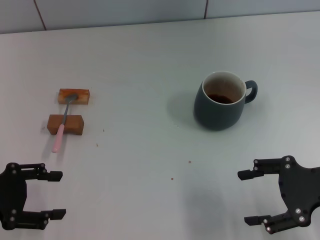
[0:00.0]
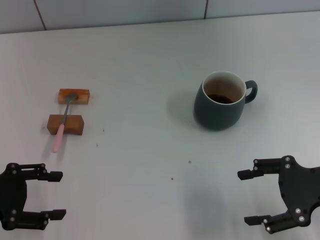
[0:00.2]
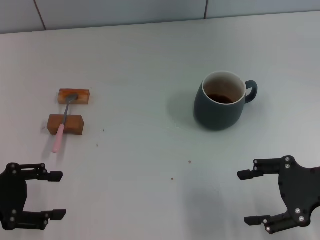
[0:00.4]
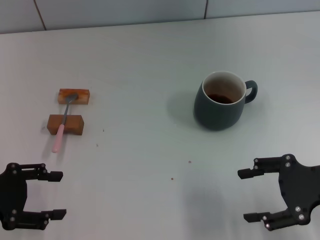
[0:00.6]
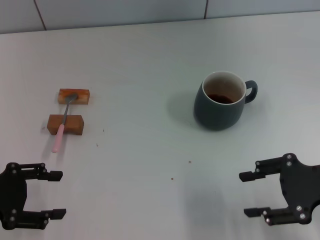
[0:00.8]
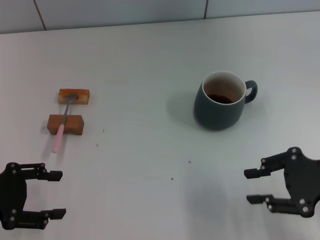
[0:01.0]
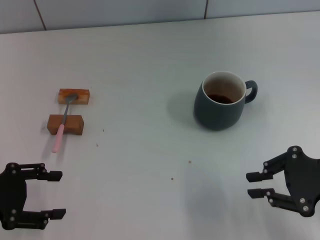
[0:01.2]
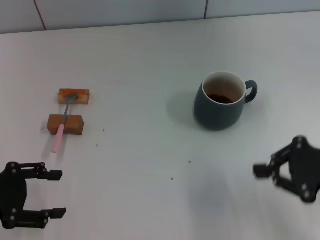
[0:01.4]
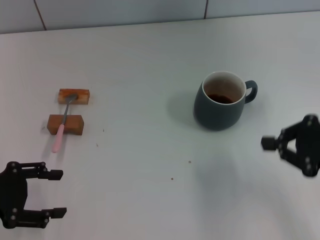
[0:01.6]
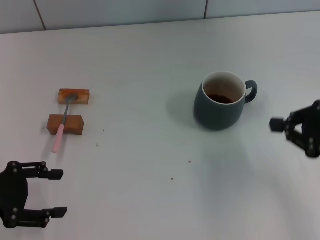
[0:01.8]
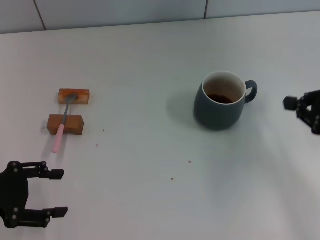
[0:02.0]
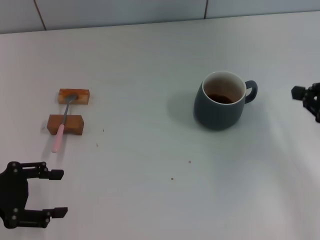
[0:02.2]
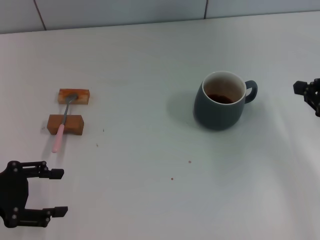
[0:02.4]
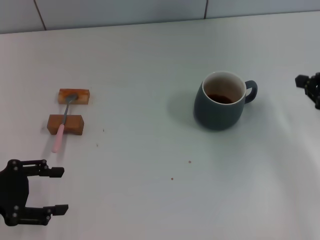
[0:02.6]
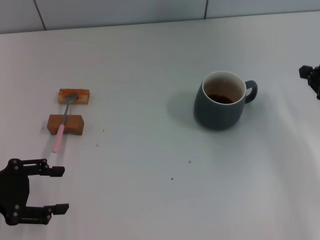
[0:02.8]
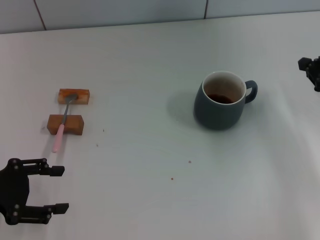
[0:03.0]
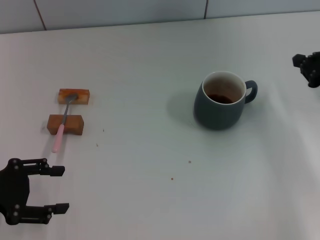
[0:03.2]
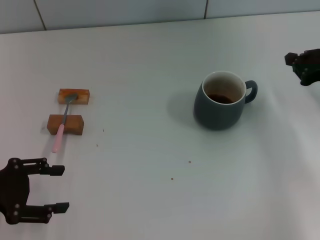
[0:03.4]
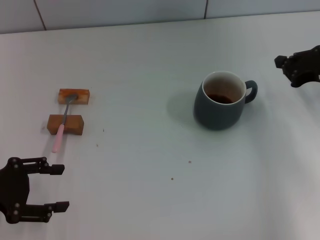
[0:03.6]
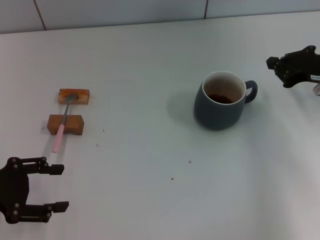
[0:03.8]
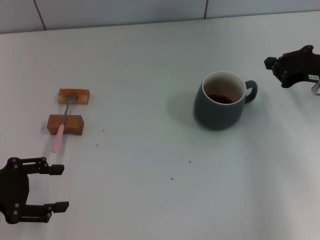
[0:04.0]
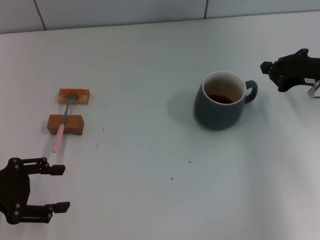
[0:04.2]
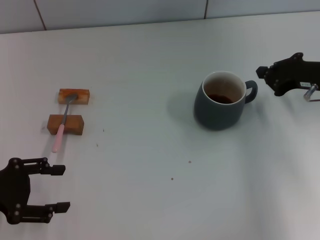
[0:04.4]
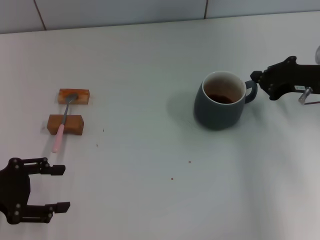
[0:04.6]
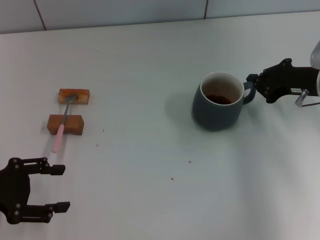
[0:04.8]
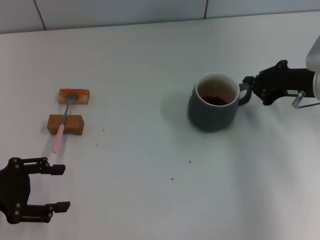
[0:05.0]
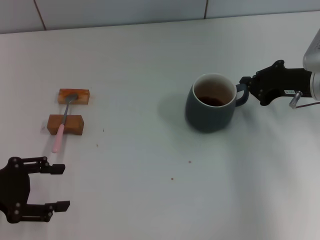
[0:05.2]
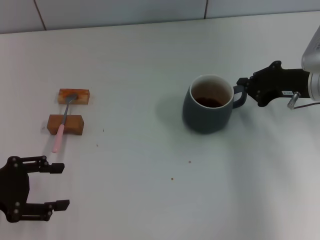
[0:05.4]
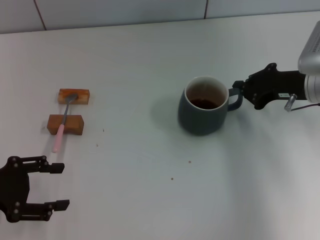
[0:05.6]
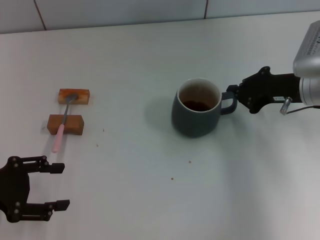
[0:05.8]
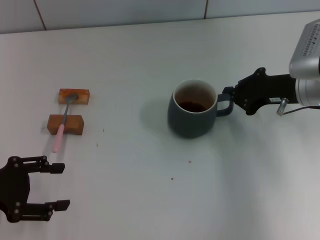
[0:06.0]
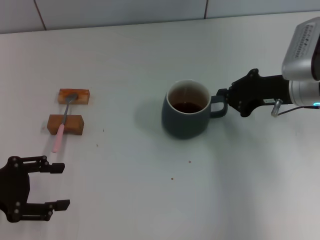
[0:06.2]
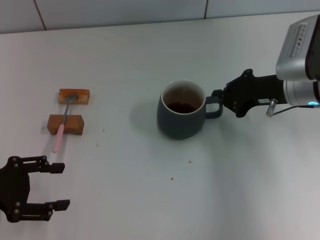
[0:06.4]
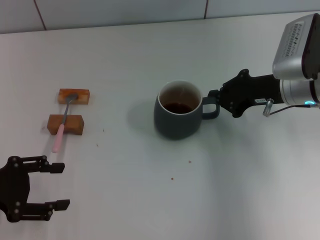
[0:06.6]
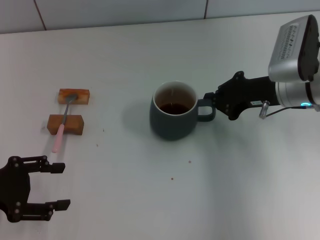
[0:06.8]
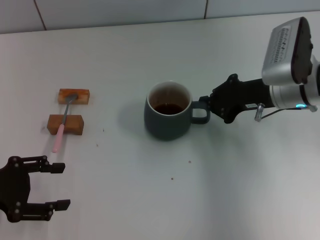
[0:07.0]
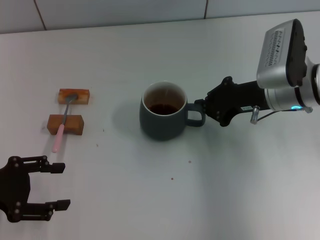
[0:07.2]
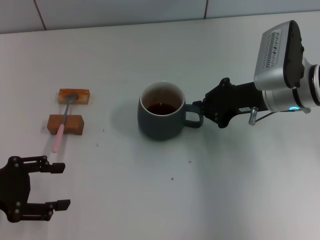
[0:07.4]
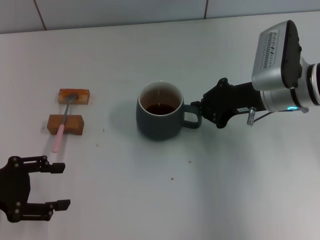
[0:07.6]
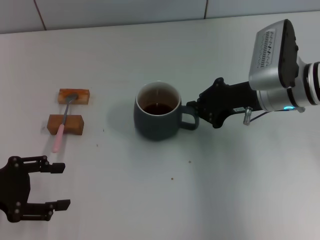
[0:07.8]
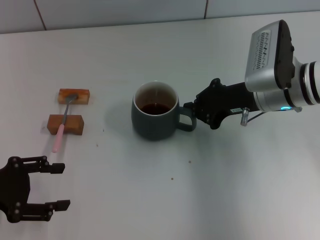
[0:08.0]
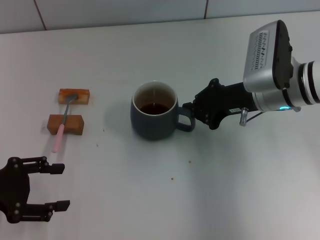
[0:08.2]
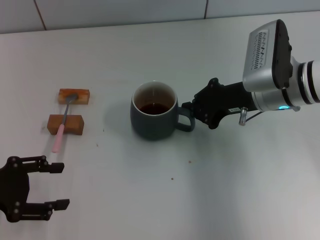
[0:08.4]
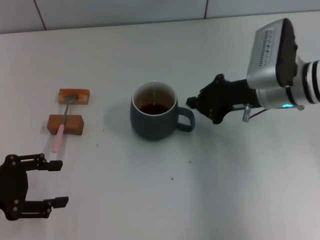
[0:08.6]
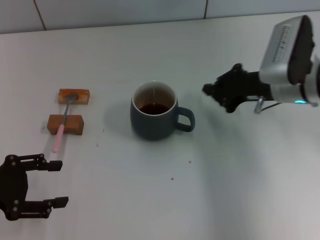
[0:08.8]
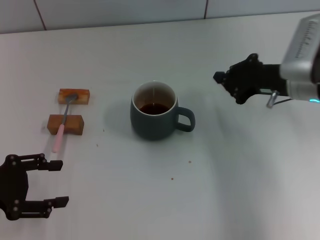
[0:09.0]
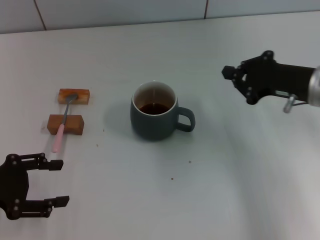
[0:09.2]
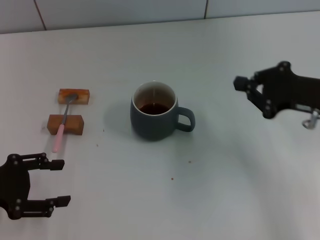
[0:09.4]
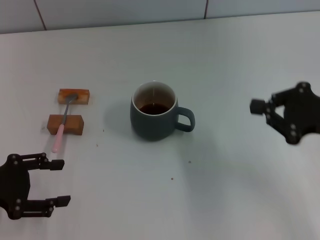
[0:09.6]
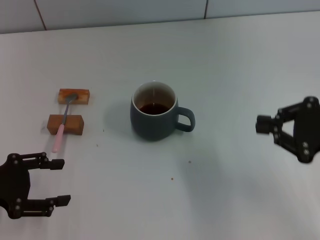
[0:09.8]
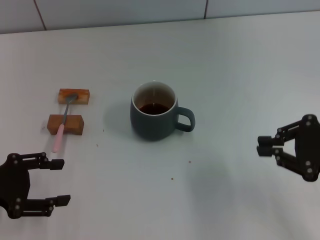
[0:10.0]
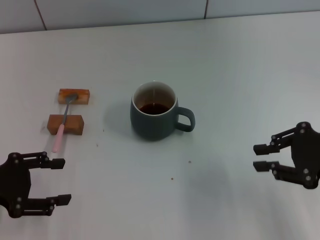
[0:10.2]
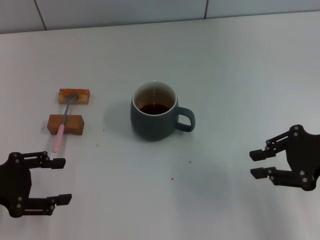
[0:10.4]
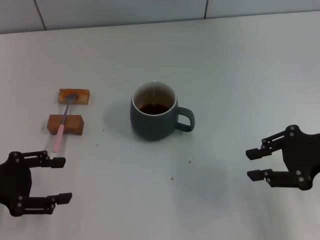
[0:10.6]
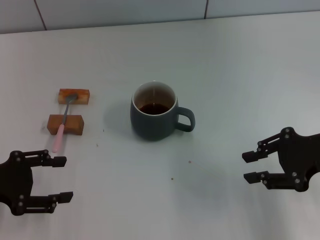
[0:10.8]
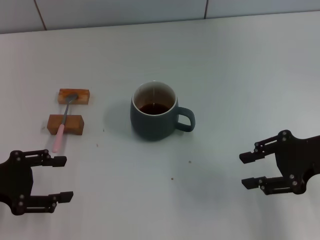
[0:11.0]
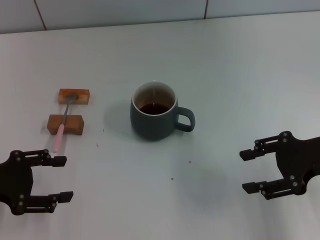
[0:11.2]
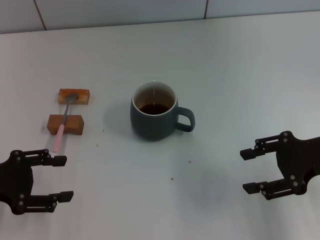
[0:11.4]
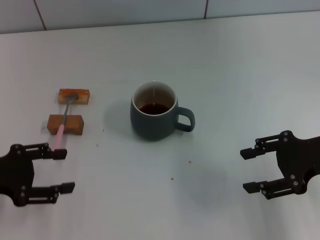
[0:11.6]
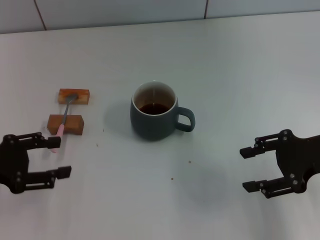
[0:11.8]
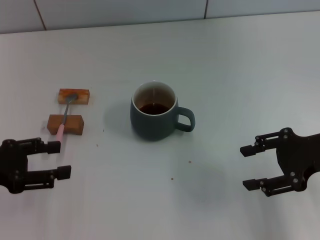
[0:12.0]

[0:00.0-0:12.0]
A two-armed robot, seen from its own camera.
Task of the whole recording: Move the grey cup to the center, lift the pink spoon, stir it three times in the cup, and put the spoon into the cup.
Step, 0:00.0 to 0:08.4: Move the cup with coffee to the center of view with the right gripper.
0:00.0 to 0:01.6: The right gripper closes.
0:01.6 to 0:03.0: The right gripper shifts roughly 10 cm forward.
0:03.0 to 0:04.4: The right gripper travels to the left by roughly 5 cm.
0:04.4 to 0:06.0: The grippers stay close to where they were, moving slightly.
0:06.0 to 0:07.6: The right gripper goes some 5 cm to the left.
0:07.6 to 0:09.0: The grippers make only small movements.
0:09.0 to 0:10.4: The right gripper goes approximately 10 cm backward and to the right.
0:10.4 to 0:12.0: The right gripper opens its fingers.

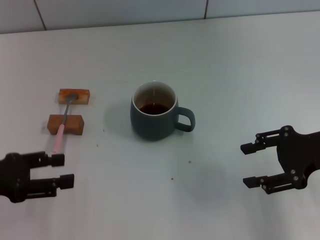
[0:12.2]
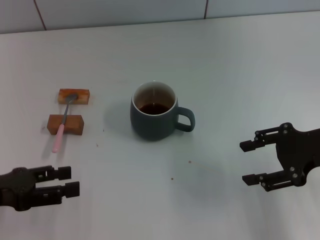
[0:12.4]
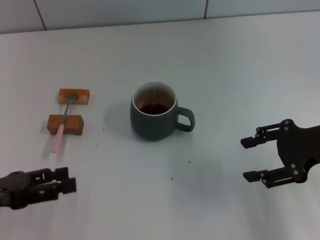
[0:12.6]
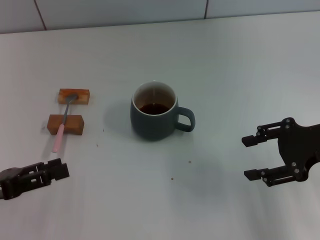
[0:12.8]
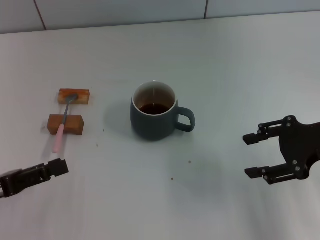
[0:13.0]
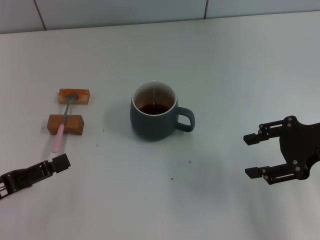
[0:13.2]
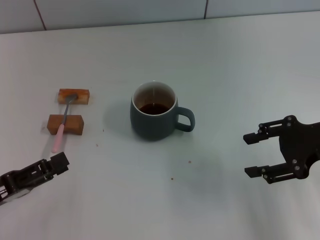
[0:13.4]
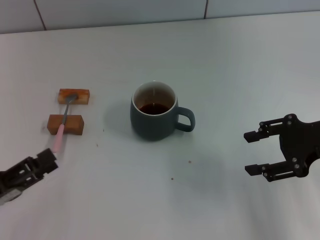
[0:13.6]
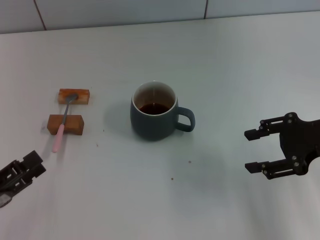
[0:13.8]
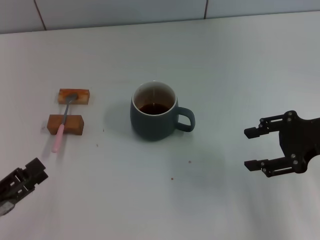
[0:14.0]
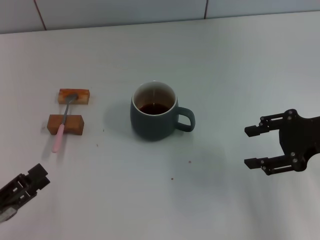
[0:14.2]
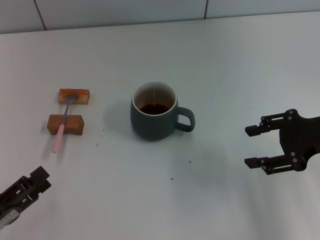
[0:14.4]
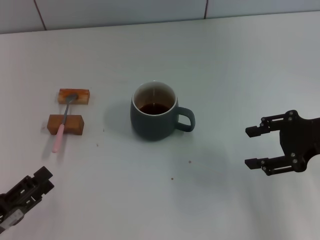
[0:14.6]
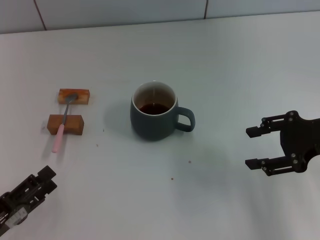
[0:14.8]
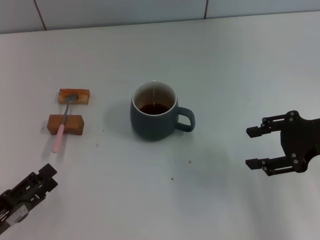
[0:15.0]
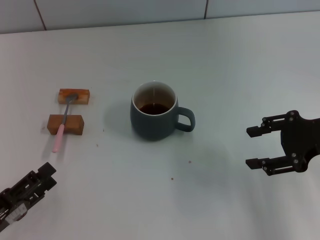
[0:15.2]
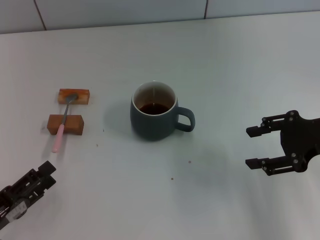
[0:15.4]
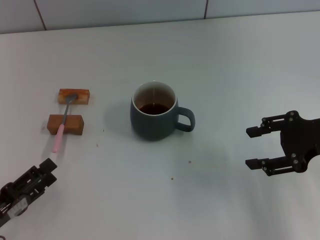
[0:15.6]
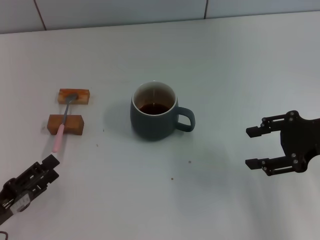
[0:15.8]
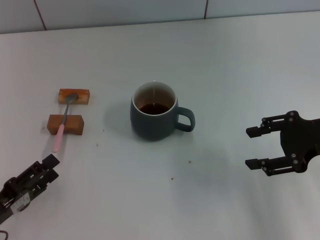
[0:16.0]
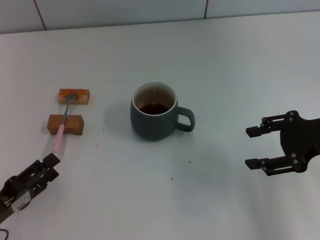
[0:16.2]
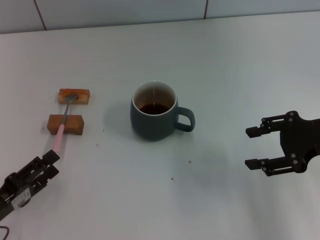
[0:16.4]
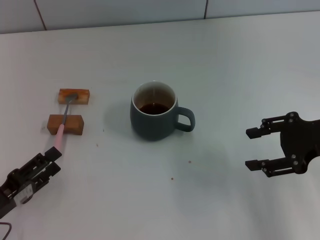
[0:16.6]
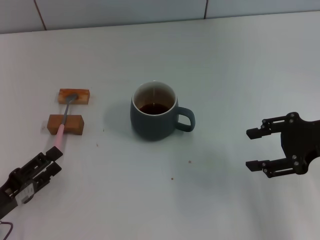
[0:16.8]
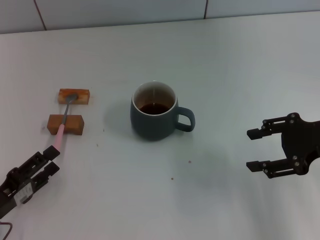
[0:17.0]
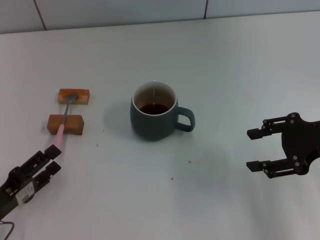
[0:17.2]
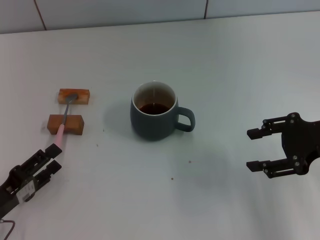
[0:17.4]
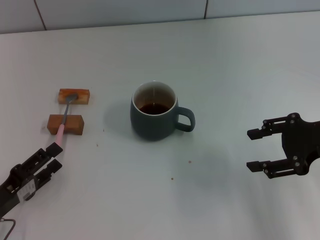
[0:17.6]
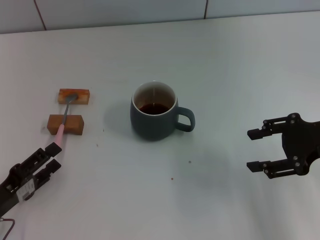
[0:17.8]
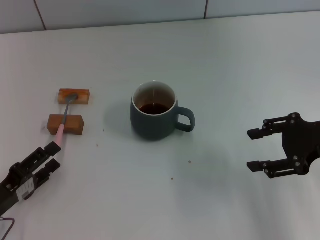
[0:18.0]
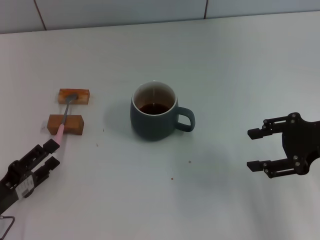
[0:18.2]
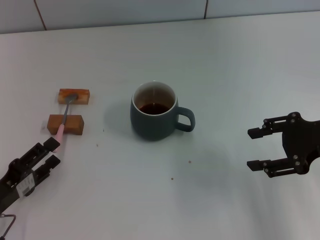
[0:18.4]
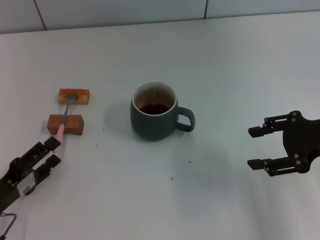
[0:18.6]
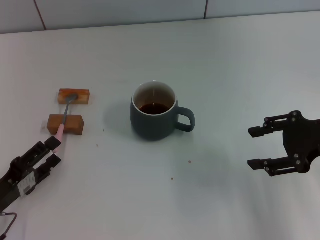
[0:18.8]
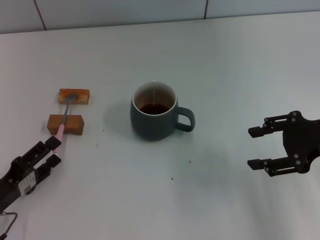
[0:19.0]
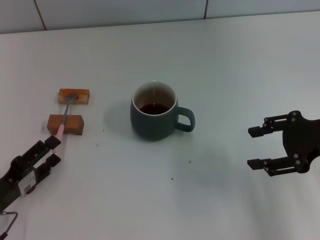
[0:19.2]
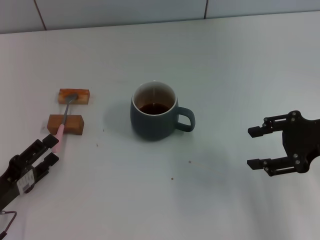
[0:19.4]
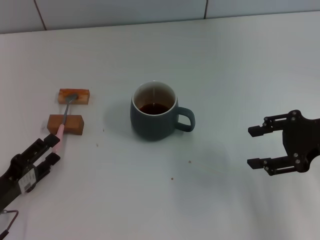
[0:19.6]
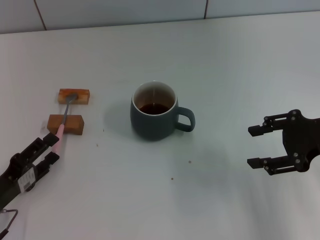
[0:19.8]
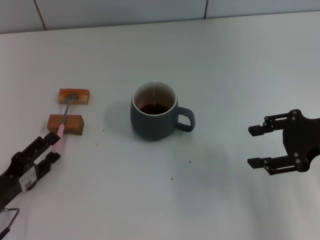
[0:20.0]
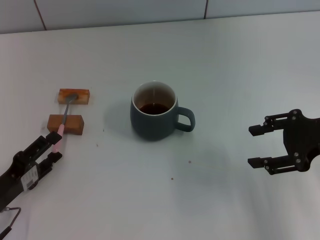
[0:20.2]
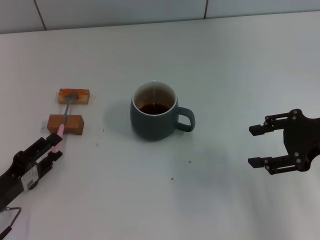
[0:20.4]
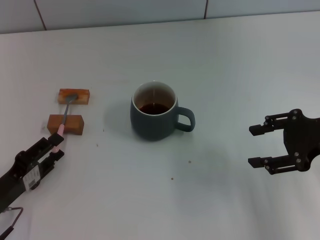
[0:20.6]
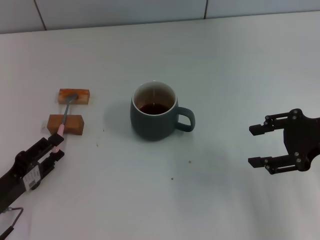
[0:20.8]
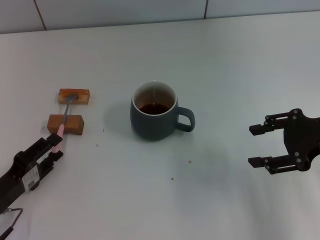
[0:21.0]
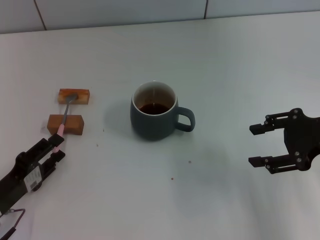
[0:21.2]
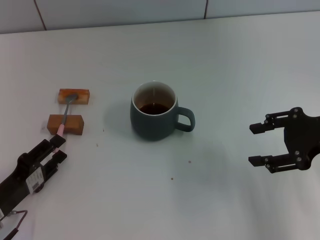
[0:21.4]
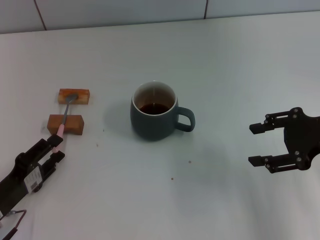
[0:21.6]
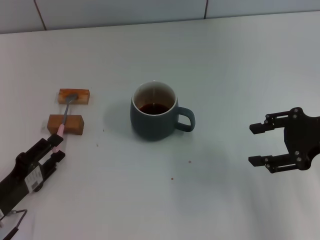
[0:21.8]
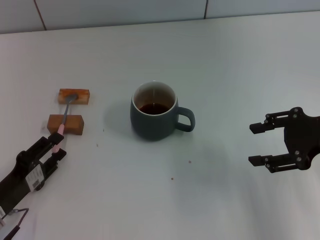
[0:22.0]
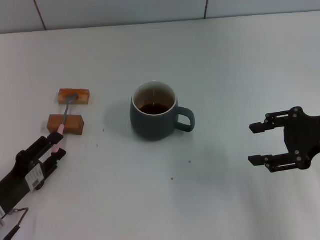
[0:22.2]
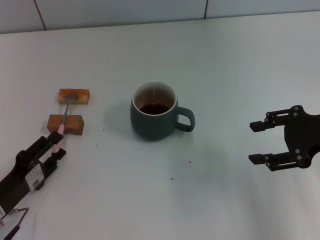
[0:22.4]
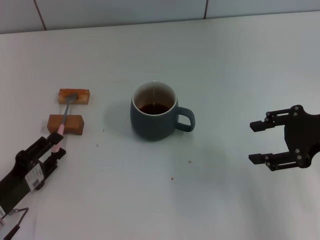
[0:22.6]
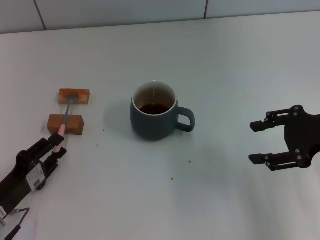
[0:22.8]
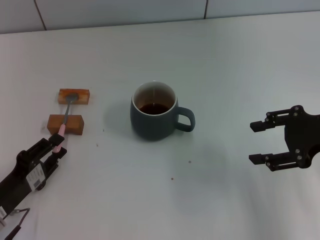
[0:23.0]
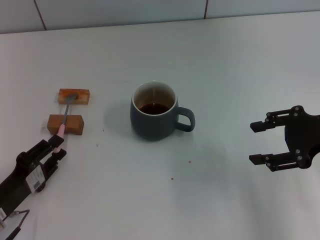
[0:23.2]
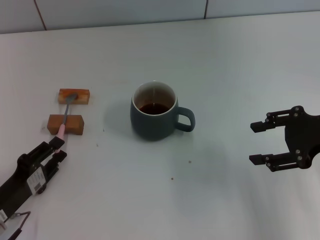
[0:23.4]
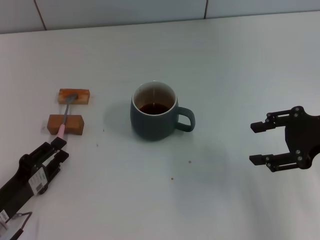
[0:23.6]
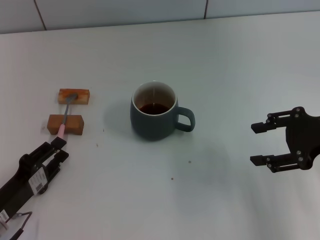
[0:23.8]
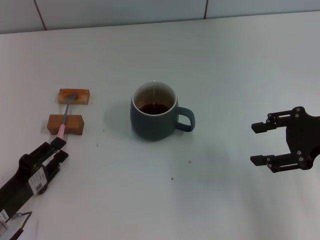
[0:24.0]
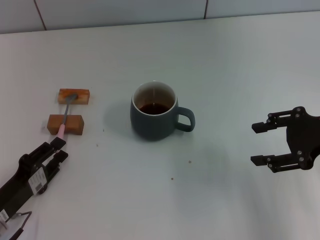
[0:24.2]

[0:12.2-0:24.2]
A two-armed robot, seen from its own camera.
Task of the whole recording: Move the grey cup to the center, lift the pink spoon, stir it three times in the cup, and put the spoon into the cup.
0:12.2 to 0:13.8: The left gripper goes some 10 cm backward and downward.
0:13.8 to 0:18.2: The grippers move only a little.
0:18.2 to 0:19.8: The two grippers keep their place.
0:19.8 to 0:21.2: Neither gripper changes place.
0:21.2 to 0:22.6: Neither gripper changes place.
0:22.6 to 0:24.2: The two grippers keep their place.
